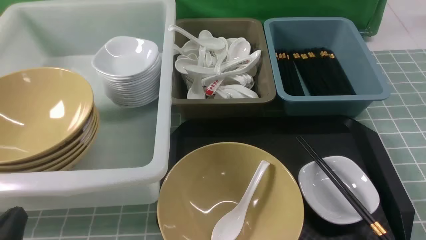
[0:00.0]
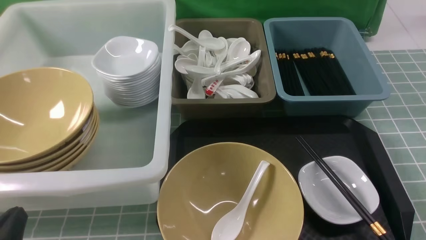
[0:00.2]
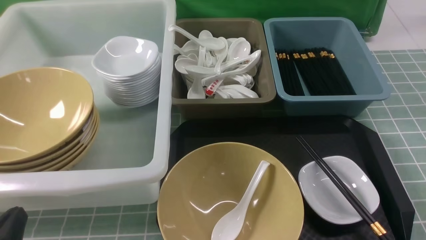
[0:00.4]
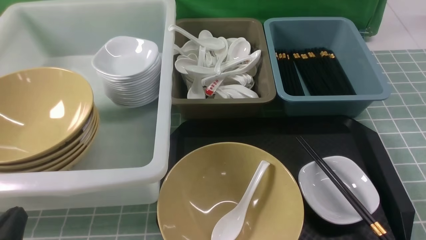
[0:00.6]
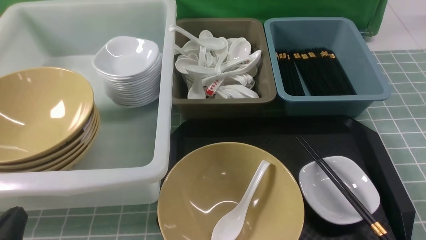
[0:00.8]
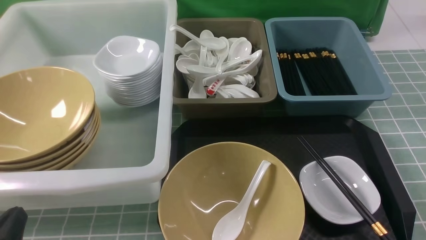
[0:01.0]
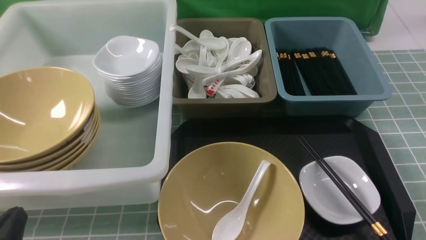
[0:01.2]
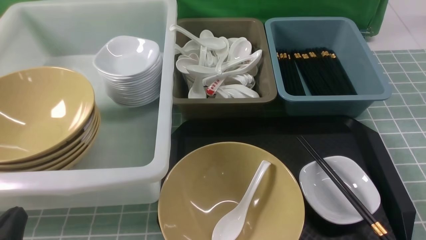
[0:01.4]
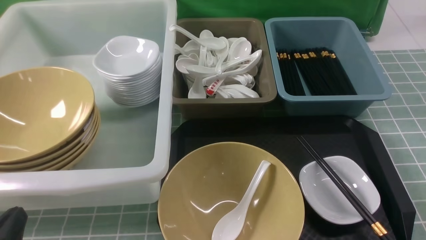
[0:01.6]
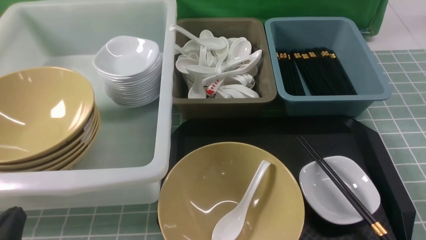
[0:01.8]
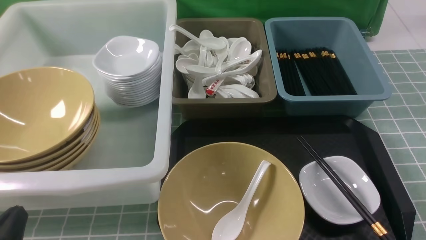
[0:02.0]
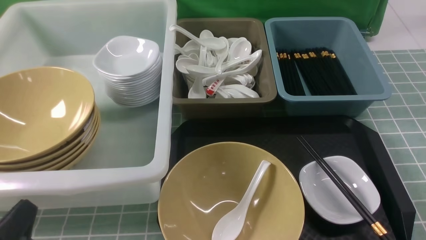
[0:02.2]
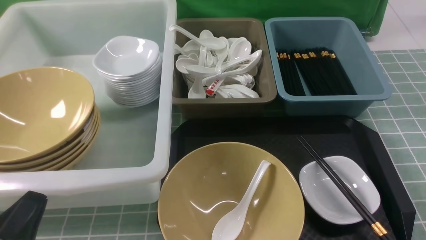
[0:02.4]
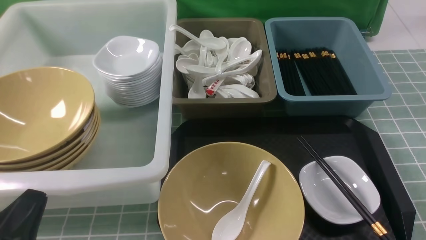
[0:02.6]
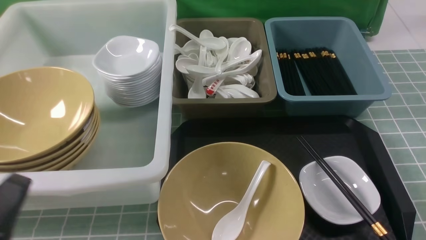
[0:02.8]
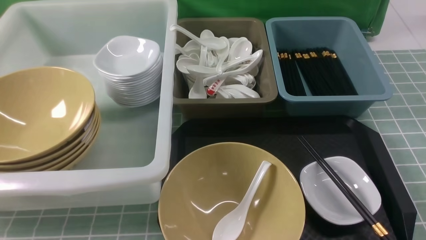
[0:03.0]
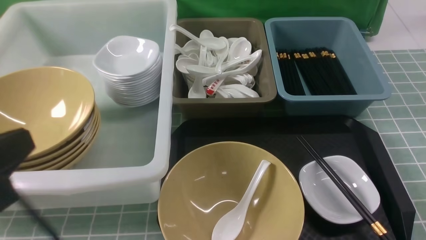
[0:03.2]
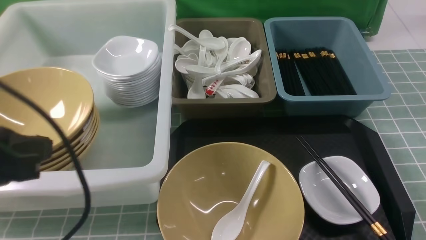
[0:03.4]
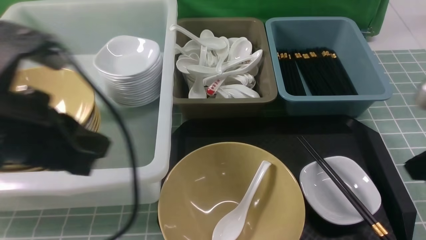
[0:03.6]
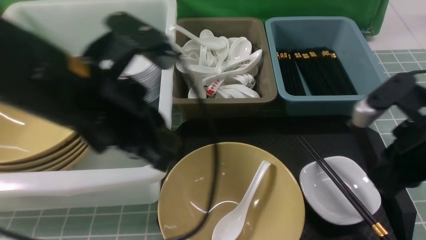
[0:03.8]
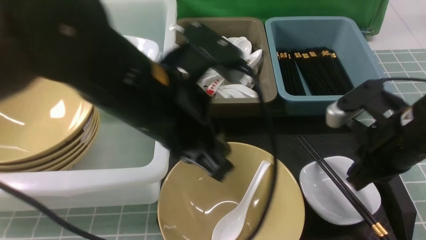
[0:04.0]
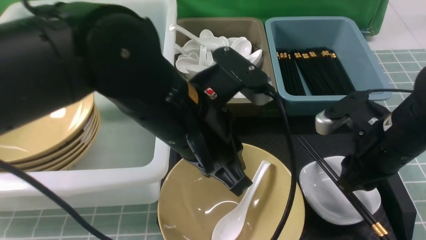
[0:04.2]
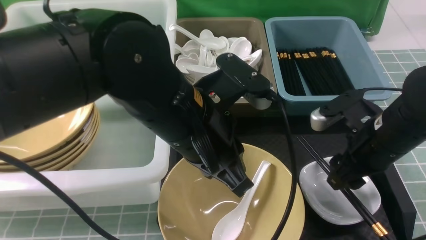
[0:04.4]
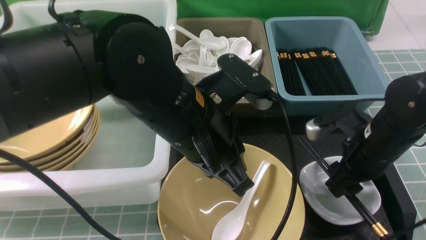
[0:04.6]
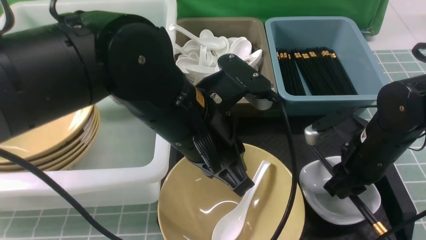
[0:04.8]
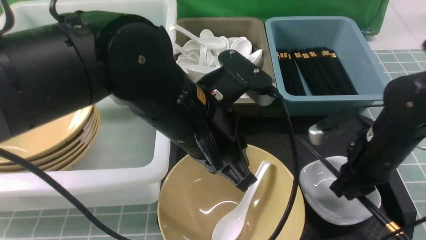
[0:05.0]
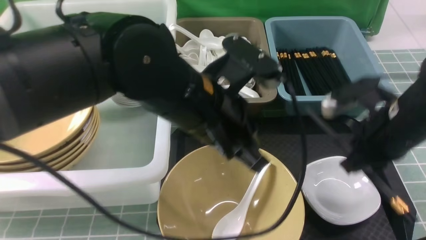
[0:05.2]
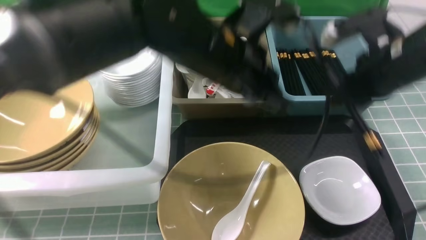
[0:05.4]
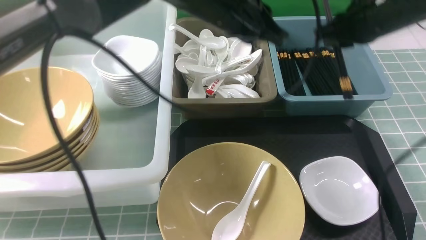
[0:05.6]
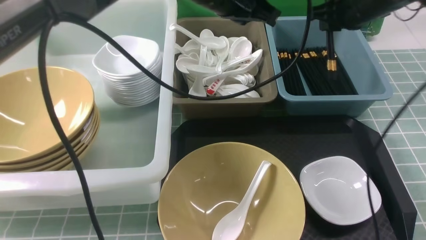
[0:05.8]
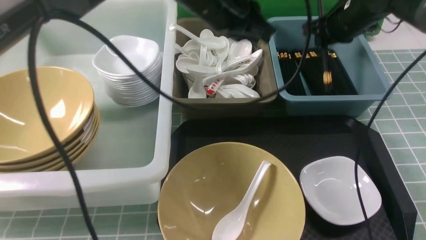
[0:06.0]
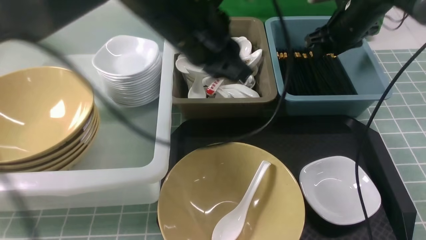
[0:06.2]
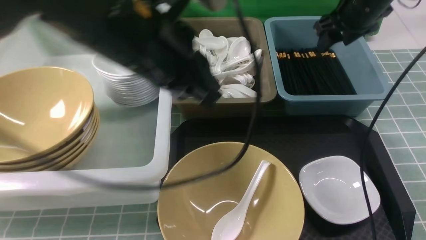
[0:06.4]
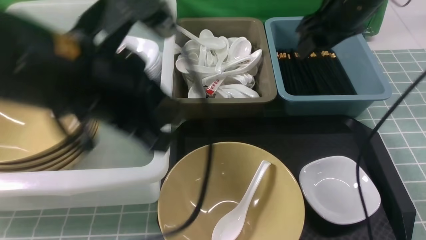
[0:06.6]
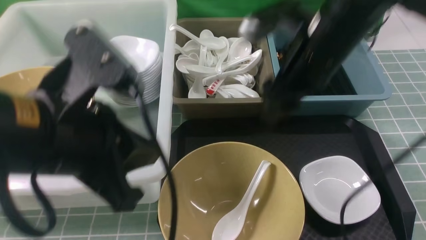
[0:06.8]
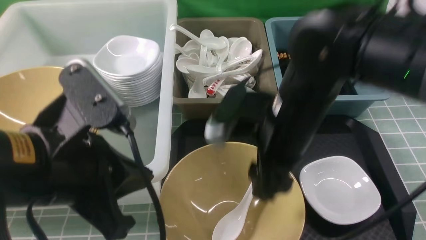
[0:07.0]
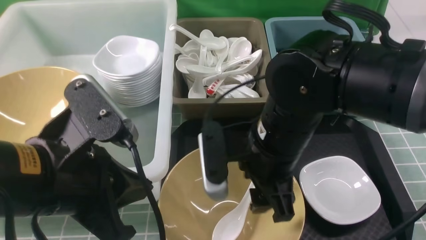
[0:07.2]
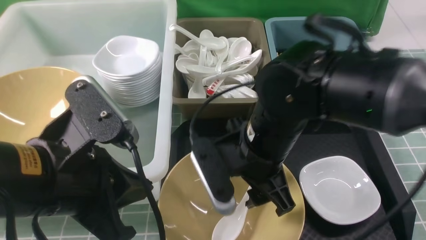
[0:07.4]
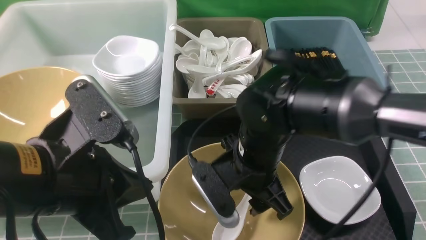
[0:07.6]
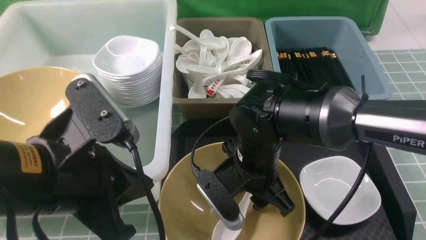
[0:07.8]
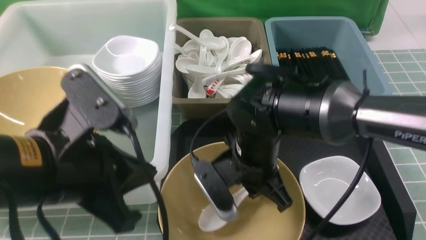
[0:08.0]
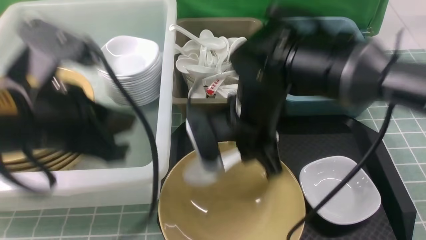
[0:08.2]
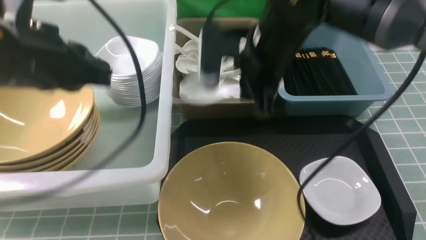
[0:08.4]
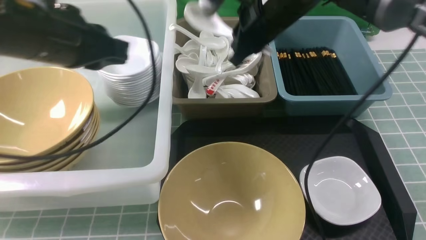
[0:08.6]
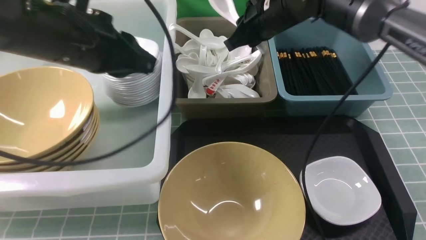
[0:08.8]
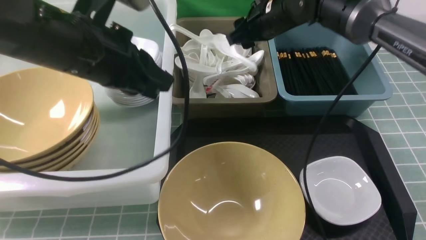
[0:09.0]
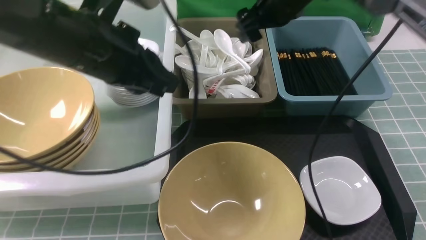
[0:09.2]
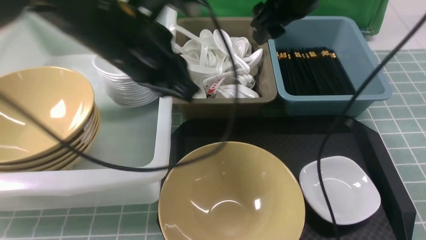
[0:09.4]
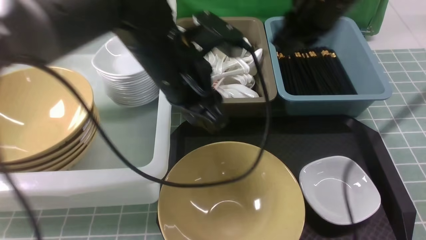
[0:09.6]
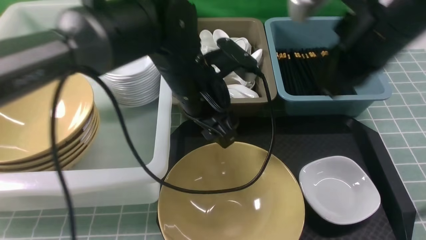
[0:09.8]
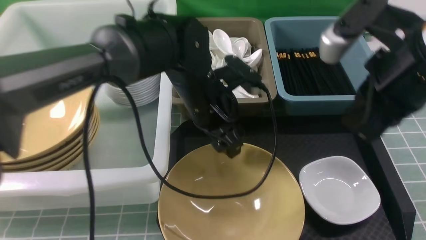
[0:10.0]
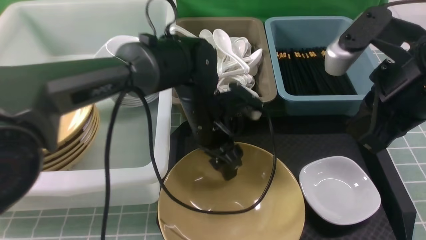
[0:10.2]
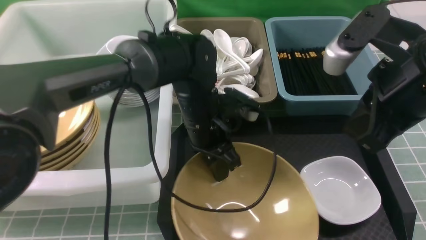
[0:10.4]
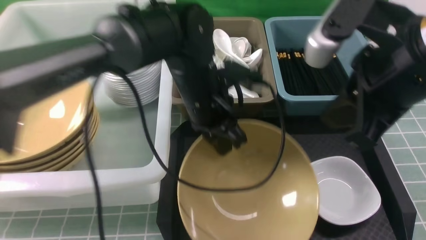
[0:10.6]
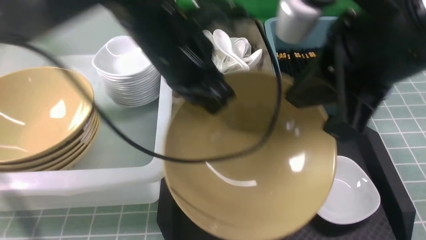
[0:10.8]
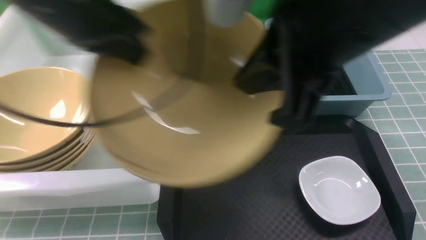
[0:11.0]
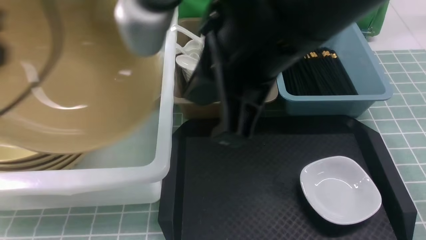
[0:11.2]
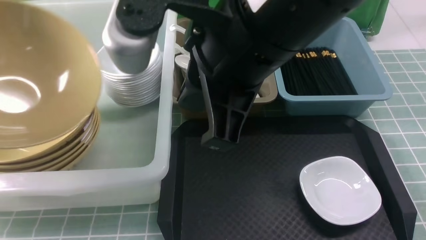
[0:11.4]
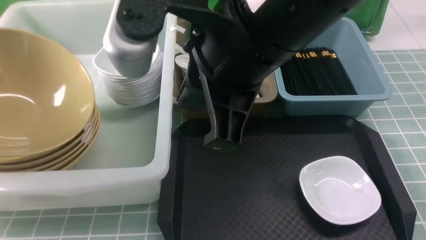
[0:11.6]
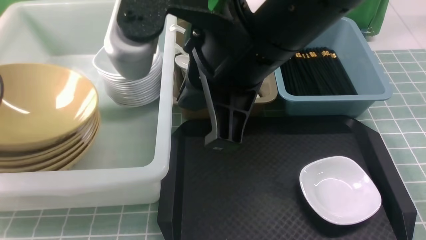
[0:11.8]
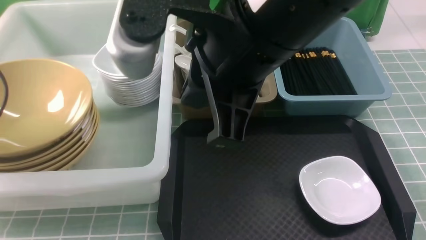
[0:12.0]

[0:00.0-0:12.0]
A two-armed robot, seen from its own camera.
Task of the whole recording: on blue table put chopsticks spoon bowls plates into blue grey white boxes.
Step, 0:00.0 to 0:05.0: use the right arm to grab the chopsticks.
Step, 0:05.2 to 0:06.4: use the right arm to put the chopsticks into the small storage box on the right.
Step, 0:06.8 to 0:08.2: use the right arm to grab the soup spoon in the middle.
Step, 0:08.4 to 0:09.0: use the right arm to put the soup spoon into the small storage box in the middle.
Step, 0:09.4 to 0:10.6: use the left arm to grab the yellow noodle bowl on the left.
0:00.0 to 0:01.6: The two grippers keep their place.
0:01.6 to 0:03.0: The right gripper travels upward by some 10 cm. Meanwhile the left gripper is displaced upward by roughly 15 cm.
0:03.0 to 0:04.4: The left gripper shifts about 25 cm to the right and forward. The right gripper goes some 20 cm forward, and opens up.
0:04.4 to 0:06.0: The left gripper moves forward and upward, roughly 15 cm; the right gripper heads forward, covering some 20 cm.
0:06.0 to 0:07.6: The grippers both shift backward and to the left by about 25 cm.
0:07.6 to 0:09.0: The right gripper travels forward and upward by approximately 20 cm, and closes, then opens again, while the left gripper travels forward by roughly 15 cm.
0:09.0 to 0:10.4: The left gripper is displaced downward and to the right by roughly 20 cm, and opens, then closes once more. Meanwhile the right gripper shifts some 25 cm backward, and closes.
0:10.4 to 0:12.0: The left gripper travels to the left by some 40 cm, and opens up; the right gripper travels to the left and upward by about 15 cm.

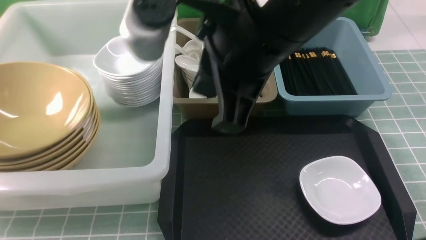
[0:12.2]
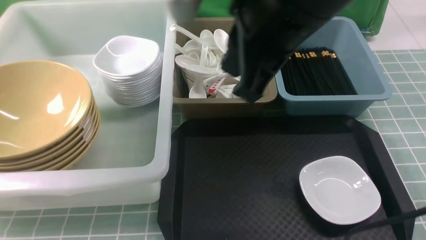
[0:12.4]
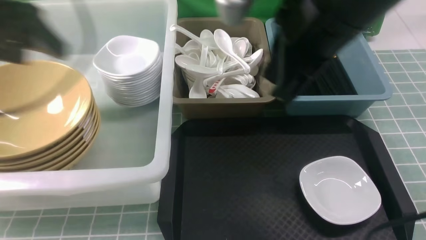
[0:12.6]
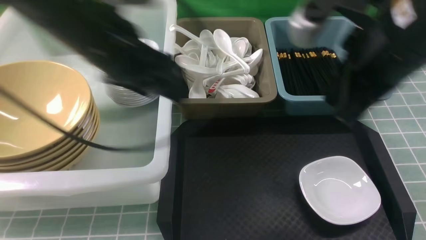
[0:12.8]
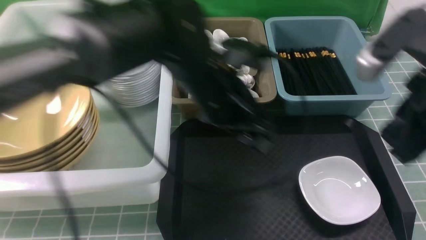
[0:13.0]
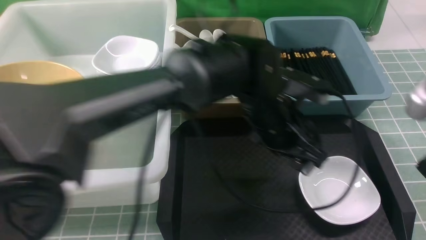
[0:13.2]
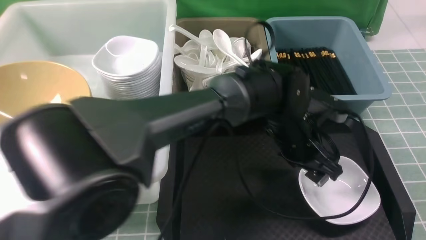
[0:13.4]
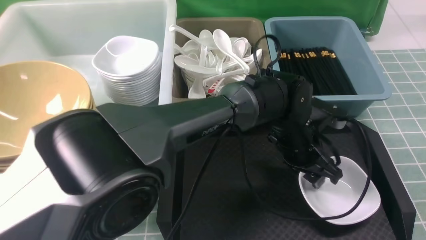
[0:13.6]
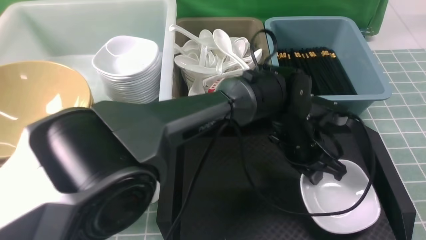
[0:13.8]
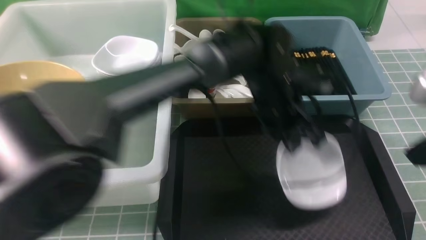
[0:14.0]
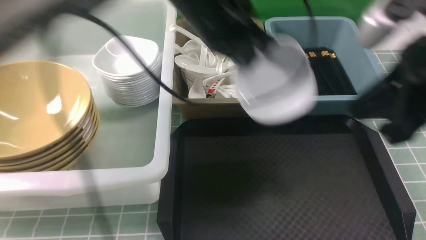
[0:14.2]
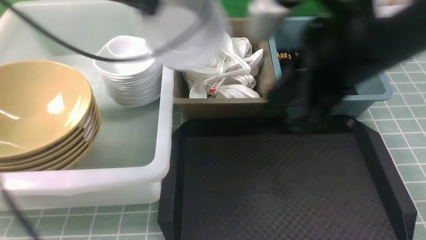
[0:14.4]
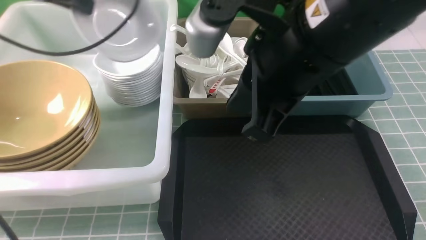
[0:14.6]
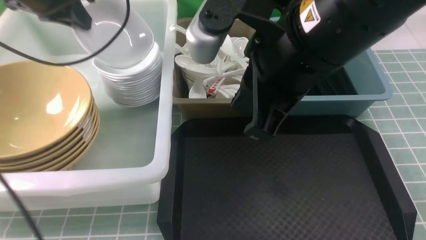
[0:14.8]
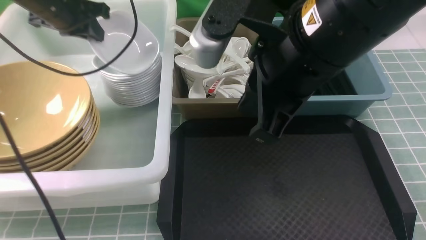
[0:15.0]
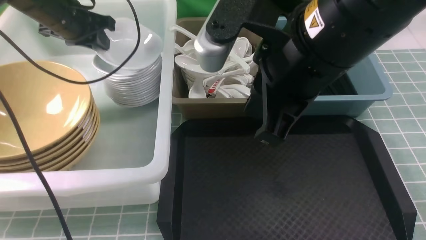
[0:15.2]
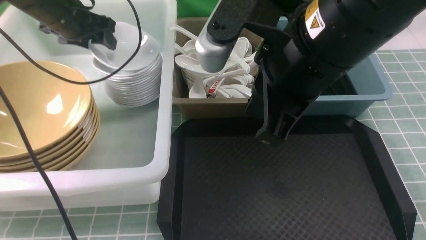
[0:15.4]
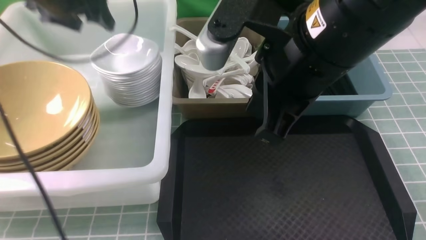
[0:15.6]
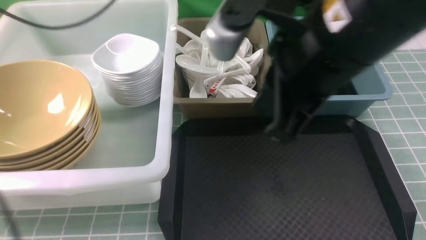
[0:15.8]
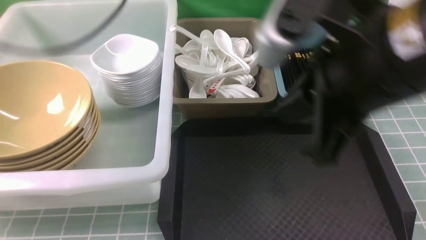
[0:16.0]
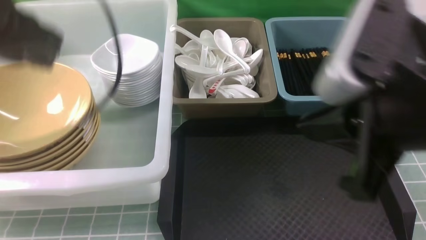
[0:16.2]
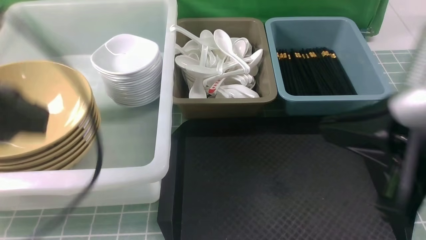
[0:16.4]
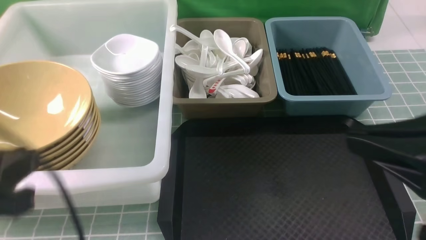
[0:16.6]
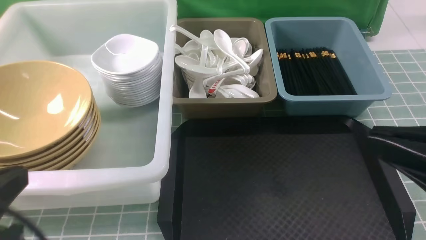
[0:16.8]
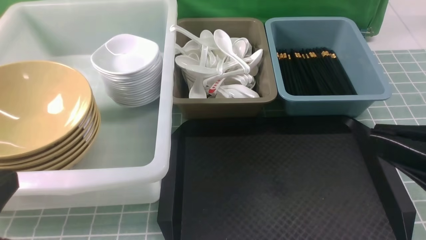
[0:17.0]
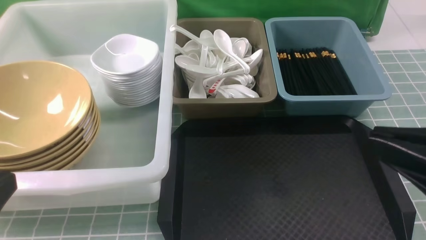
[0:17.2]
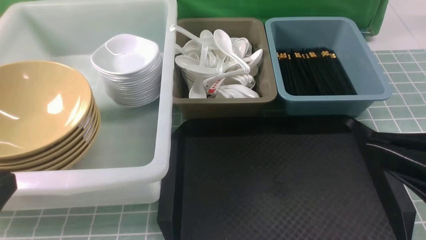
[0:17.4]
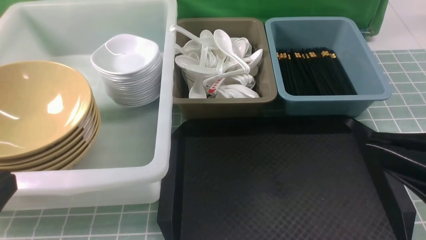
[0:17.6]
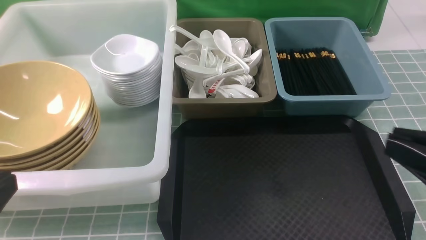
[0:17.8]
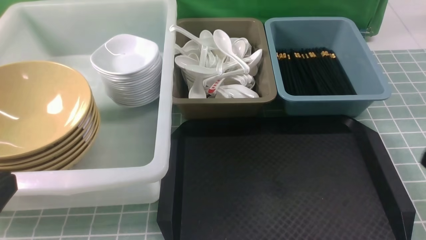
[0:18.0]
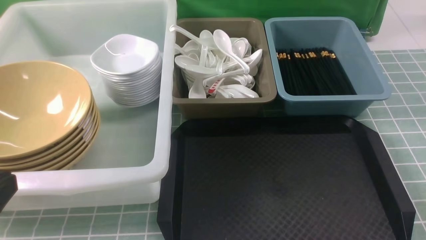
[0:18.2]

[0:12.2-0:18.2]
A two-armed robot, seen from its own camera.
Task of the whole recording: on blue table put chopsticks spoon bowls plates into blue grey white boxes.
Step, 0:12.2 to 0:14.0: use the left arm to grab the plate.
Step, 0:14.2 to 0:15.6: use the left arm to put the plate into the large storage box on the left.
0:12.2 to 0:13.8: The left gripper moves to the right, some 50 cm, and closes its fingers. The right gripper is displaced to the right and backward by some 20 cm.
0:13.8 to 0:15.2: The right gripper shifts some 20 cm to the left and forward; the left gripper goes some 35 cm to the left.
0:15.2 to 0:16.6: The right gripper travels to the right and backward by about 15 cm. Meanwhile the left gripper moves backward, roughly 35 cm, and closes up.
0:16.6 to 0:18.2: The left gripper shifts by approximately 5 cm, while the right gripper goes roughly 15 cm downward and to the right.
